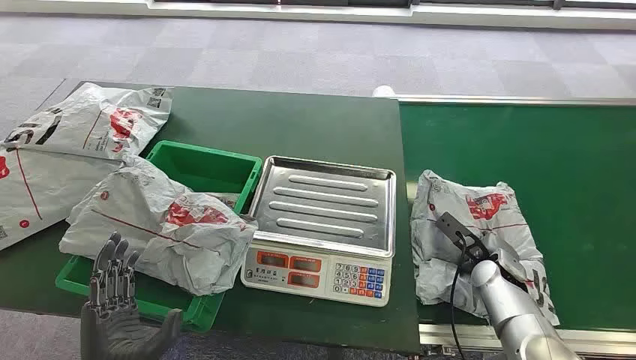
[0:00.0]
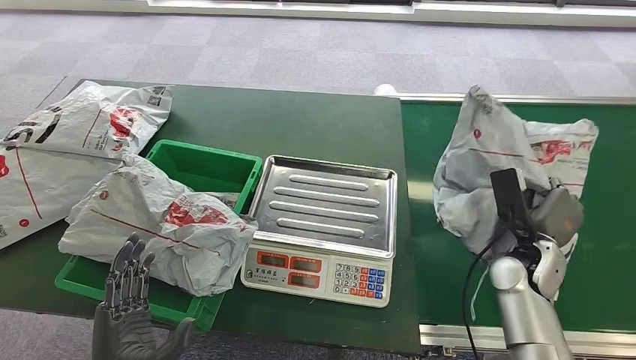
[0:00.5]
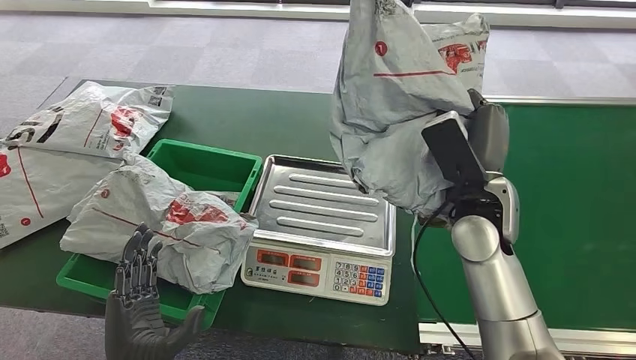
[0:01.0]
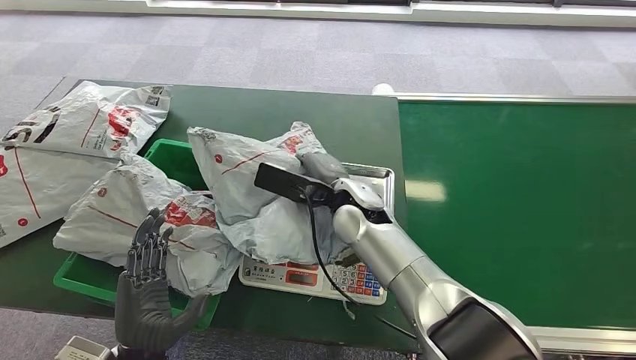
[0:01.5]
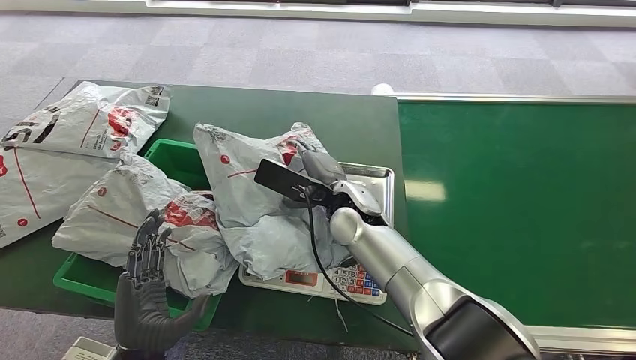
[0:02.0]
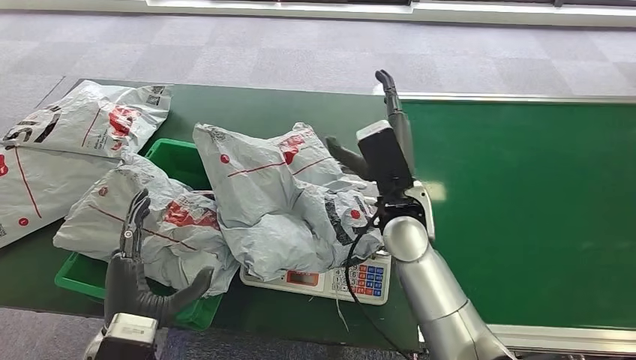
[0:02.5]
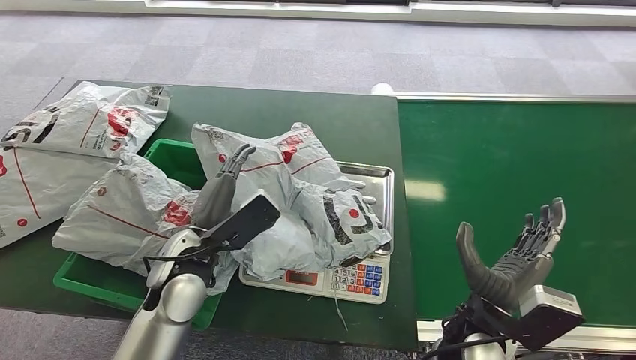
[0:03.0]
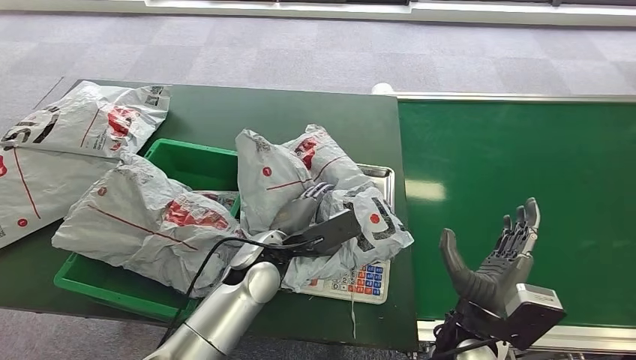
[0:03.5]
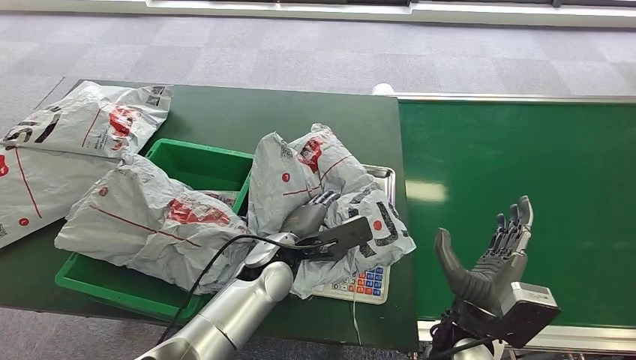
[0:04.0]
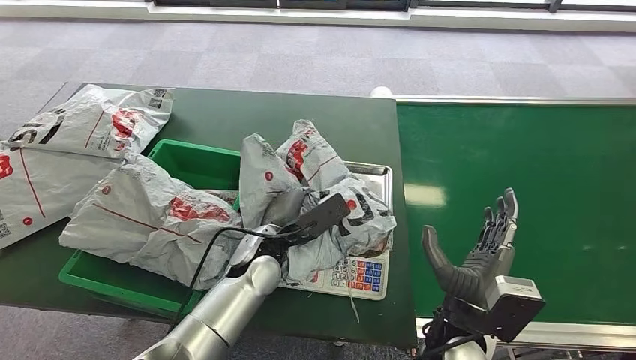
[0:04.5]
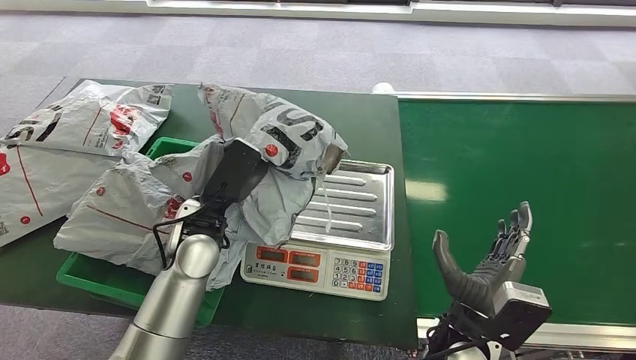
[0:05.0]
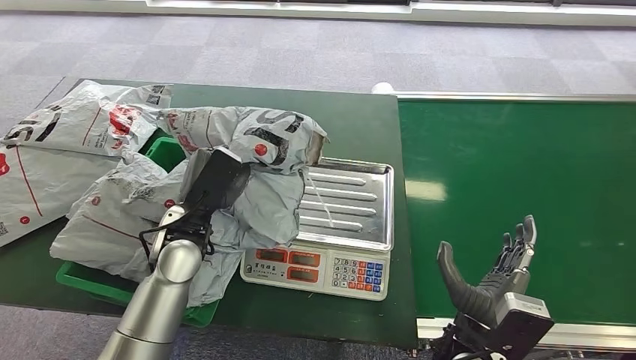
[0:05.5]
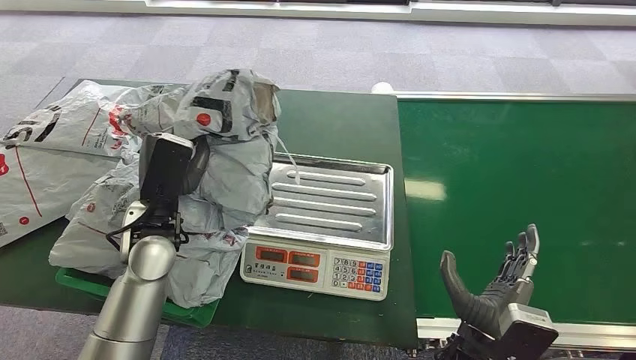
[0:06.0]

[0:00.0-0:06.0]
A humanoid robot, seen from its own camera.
Task of the whole recording: Weigh the package on the weighing device and place it in the left basket.
Step, 0:00.0 to 0:00.5: Pick up the package from the conveyor belt.
Step, 0:01.0 to 0:02.0: Place the package onto the inbound machine.
Step, 0:03.5 to 0:05.0: Pick up the package from the inbound machine.
Step, 0:05.5 to 0:06.0: Place the package into the parcel locker.
